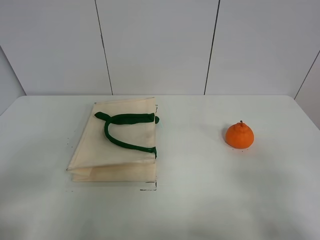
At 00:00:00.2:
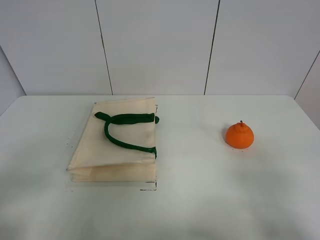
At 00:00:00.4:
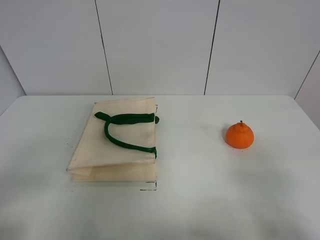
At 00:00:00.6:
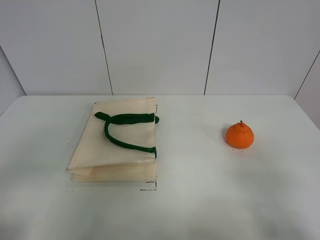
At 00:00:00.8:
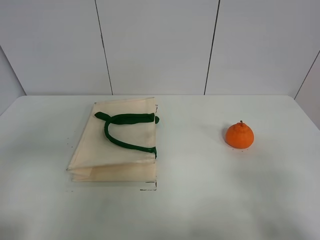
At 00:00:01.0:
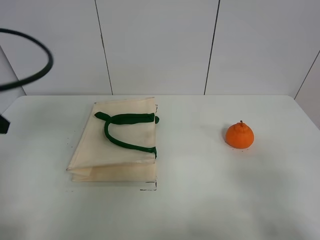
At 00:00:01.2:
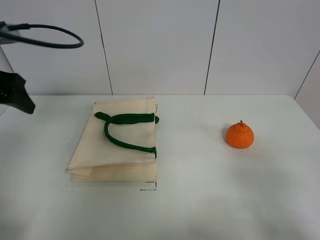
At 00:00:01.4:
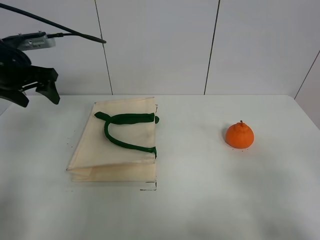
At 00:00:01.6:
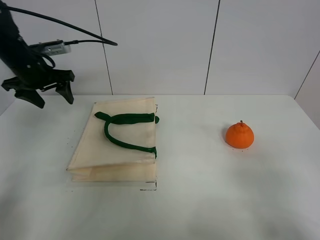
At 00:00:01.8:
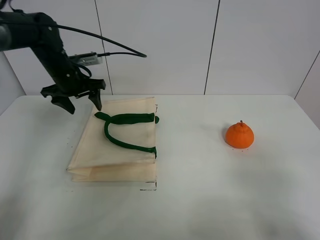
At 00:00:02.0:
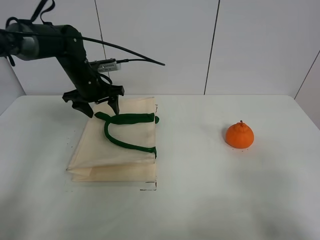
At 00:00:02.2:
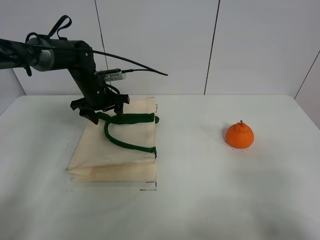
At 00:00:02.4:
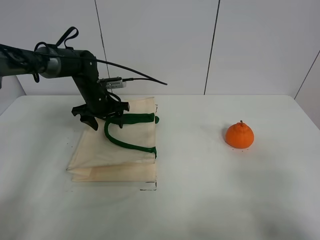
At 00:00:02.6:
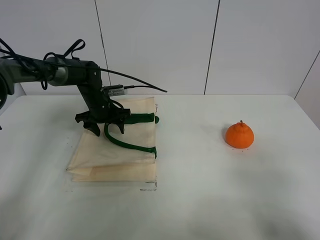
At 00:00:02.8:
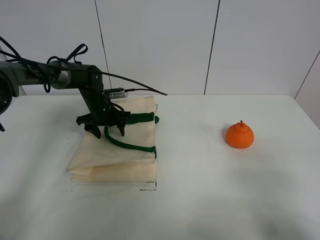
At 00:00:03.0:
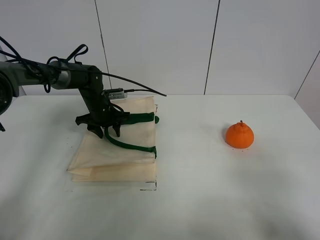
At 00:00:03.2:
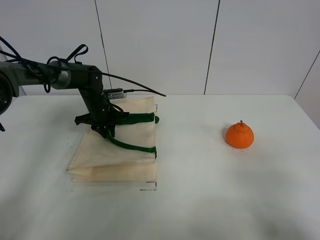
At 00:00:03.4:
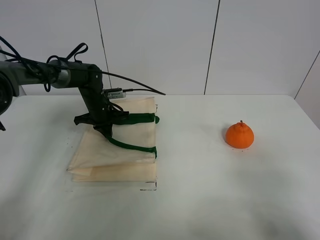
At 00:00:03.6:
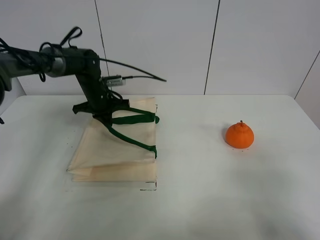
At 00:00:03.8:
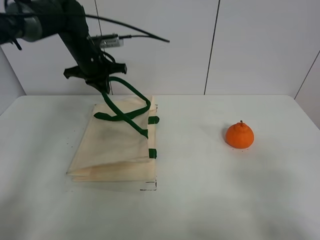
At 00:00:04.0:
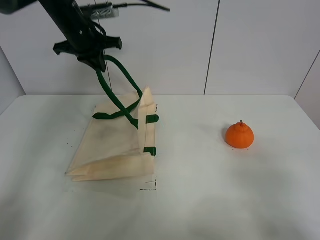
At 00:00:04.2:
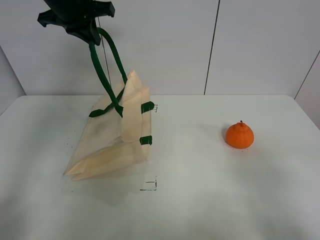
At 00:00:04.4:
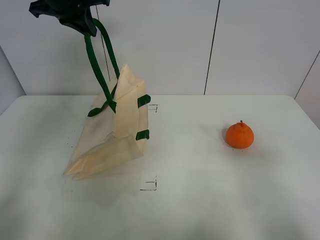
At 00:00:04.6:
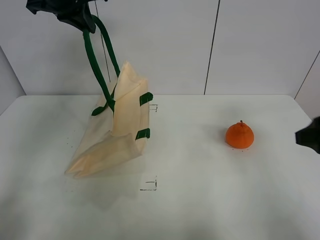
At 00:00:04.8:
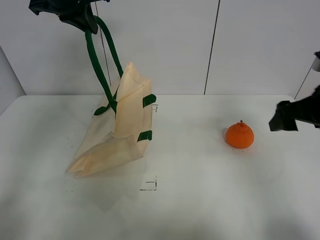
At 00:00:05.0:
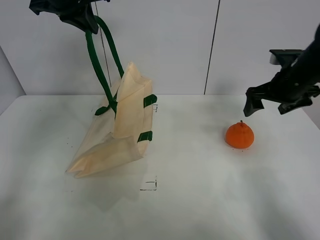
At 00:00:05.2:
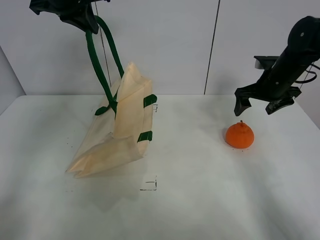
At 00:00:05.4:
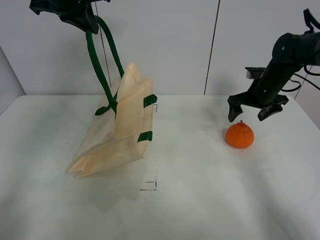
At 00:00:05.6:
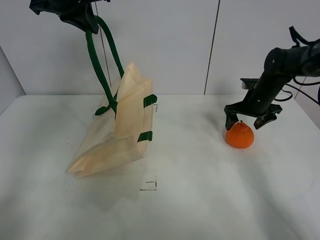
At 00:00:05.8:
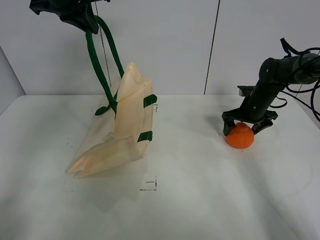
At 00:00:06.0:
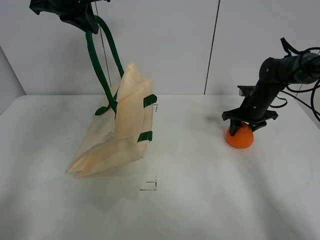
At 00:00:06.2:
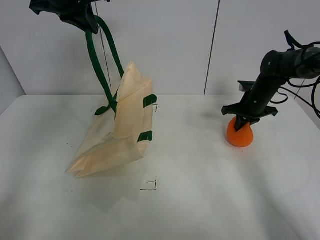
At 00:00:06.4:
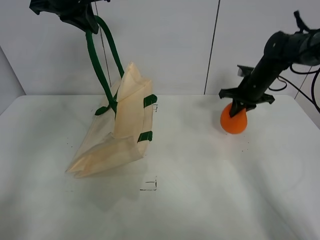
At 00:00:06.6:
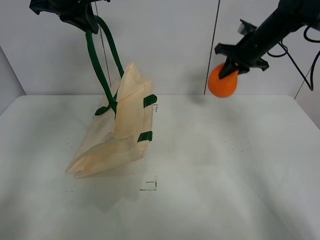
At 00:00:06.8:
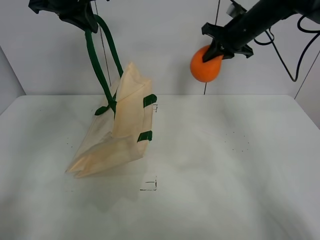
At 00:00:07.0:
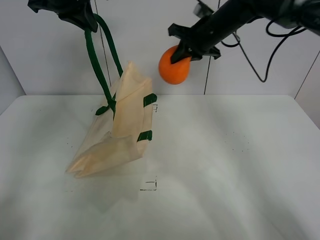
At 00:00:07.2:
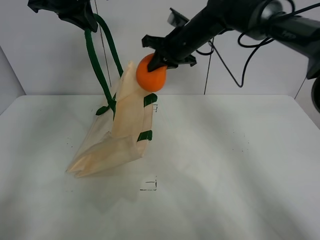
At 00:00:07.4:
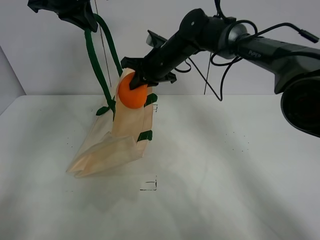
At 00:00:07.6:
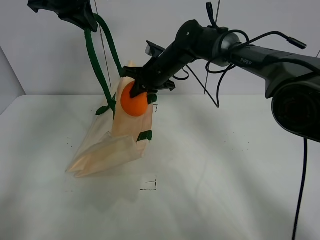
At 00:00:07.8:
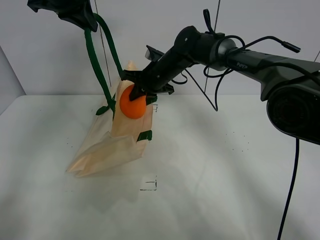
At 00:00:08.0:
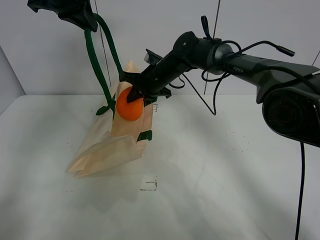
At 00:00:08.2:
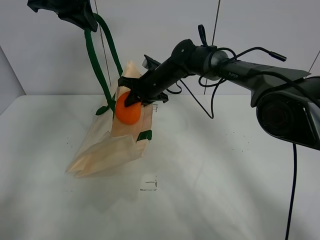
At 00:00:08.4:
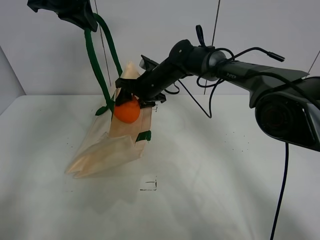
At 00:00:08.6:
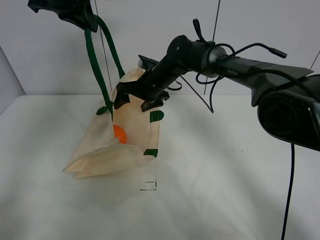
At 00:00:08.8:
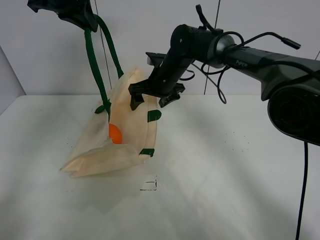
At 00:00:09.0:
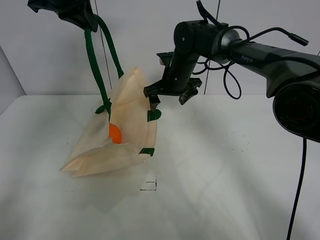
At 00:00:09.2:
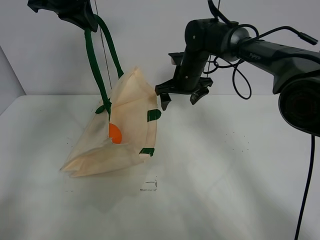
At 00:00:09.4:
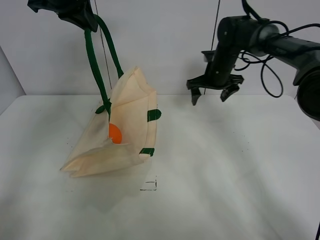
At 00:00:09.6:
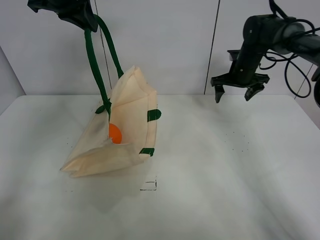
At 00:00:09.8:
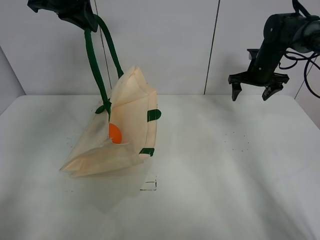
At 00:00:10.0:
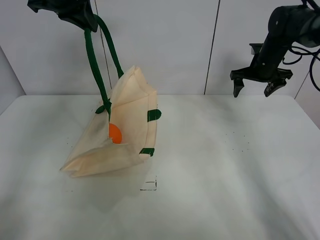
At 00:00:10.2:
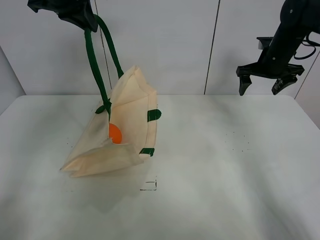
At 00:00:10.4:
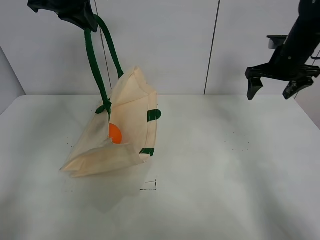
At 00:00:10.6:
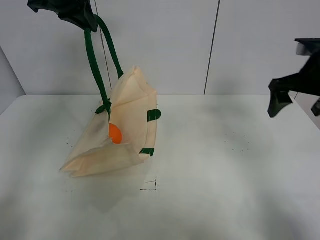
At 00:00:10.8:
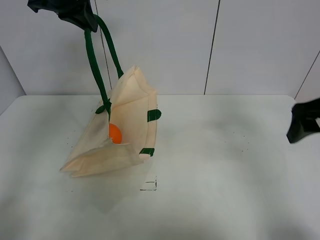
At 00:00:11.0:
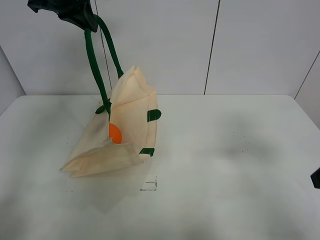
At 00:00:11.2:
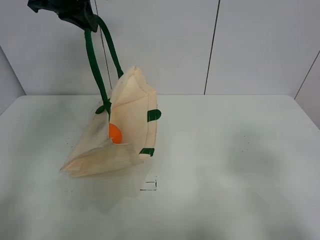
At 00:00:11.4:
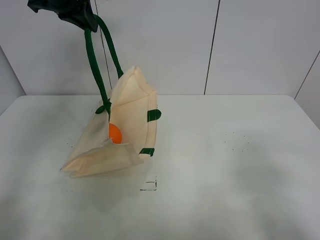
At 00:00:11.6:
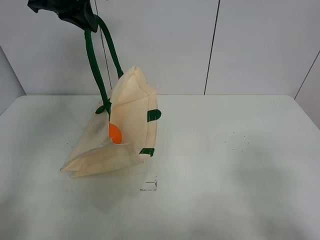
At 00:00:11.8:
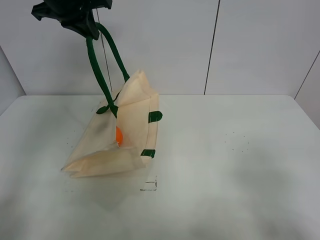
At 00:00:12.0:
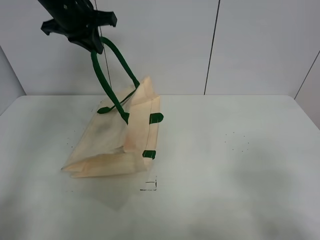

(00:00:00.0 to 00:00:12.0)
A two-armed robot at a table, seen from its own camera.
Task of the whole recording: open the white linen bag and put the orange in the bag.
Step, 00:00:00.0 - 00:00:04.0: Lift the handbag with left gripper.
Step, 00:00:04.2 - 00:00:06.2: Grasp the orange with right gripper.
Step, 00:00:06.4 - 00:00:09.4: Place the orange in the handbag with right gripper.
00:00:00.0 - 00:00:01.6: The left gripper goes approximately 40 cm forward.
00:00:01.6 - 00:00:03.0: The left gripper is displaced downward and to the right by approximately 20 cm.
00:00:03.0 - 00:00:04.4: The left gripper heads upward, covering roughly 30 cm, and closes its fingers. The right gripper ends up about 5 cm from where it was.
00:00:04.4 - 00:00:06.0: The right gripper travels forward and downward by some 40 cm, and closes up.
00:00:06.0 - 00:00:07.6: The right gripper travels to the left by some 25 cm, and closes.
00:00:07.6 - 00:00:09.0: The right gripper opens.
00:00:09.0 - 00:00:10.4: The right gripper shifts some 25 cm to the right.
00:00:10.4 - 00:00:12.0: The right gripper moves backward, approximately 40 cm.

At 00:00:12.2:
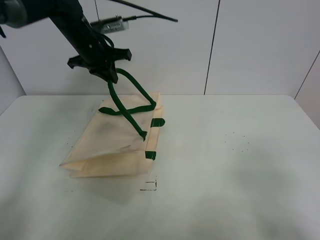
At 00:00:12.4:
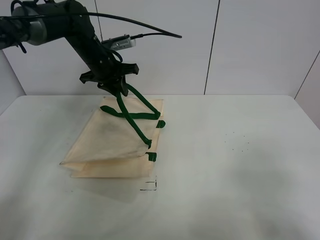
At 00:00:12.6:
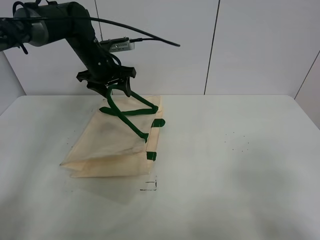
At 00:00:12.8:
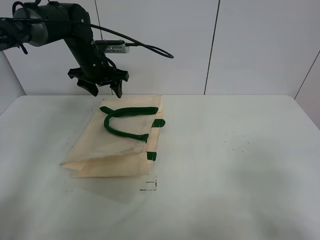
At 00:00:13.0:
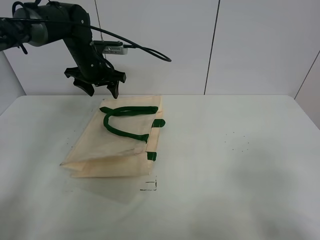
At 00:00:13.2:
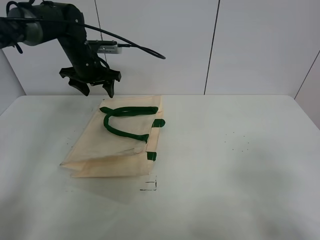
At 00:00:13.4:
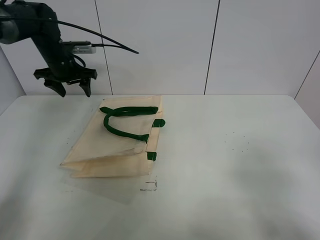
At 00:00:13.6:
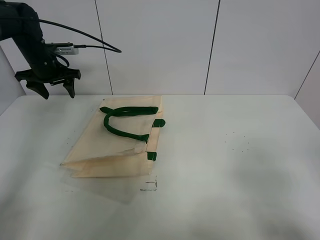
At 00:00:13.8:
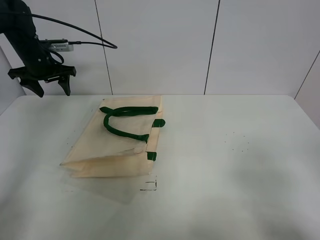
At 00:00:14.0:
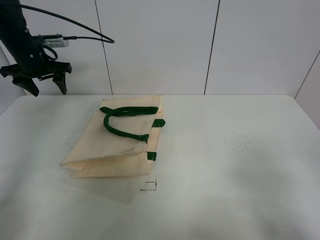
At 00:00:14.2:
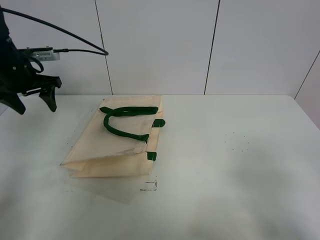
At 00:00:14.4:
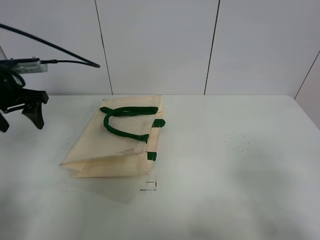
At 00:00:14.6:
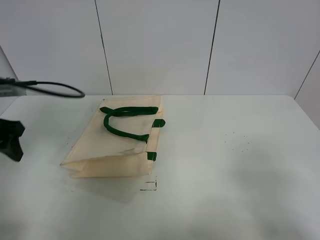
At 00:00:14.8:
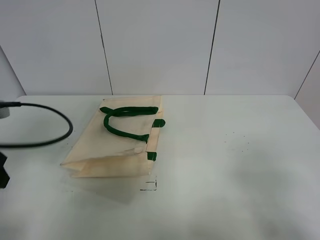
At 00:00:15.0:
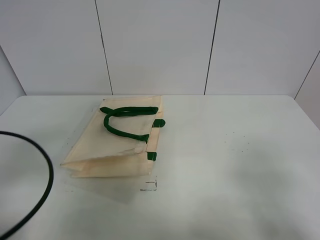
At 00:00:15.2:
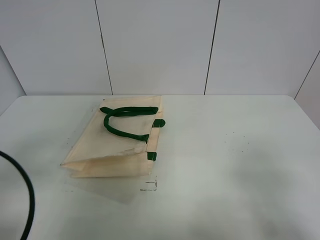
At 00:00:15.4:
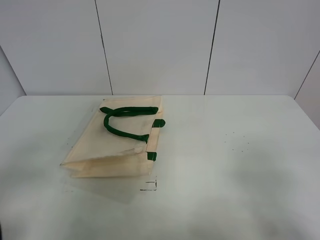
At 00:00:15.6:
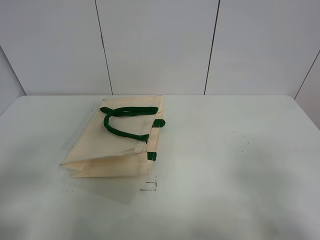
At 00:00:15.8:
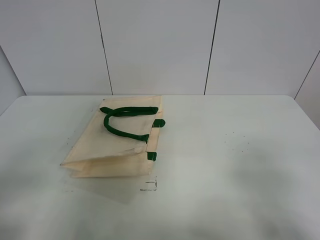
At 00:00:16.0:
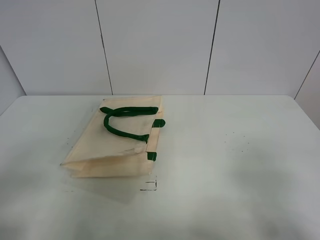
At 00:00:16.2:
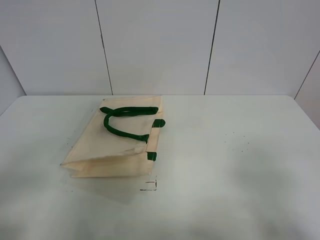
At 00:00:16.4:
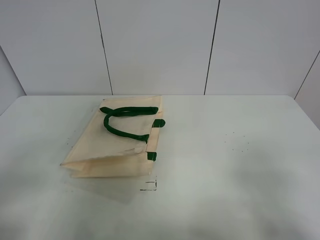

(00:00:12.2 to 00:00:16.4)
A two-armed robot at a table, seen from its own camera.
Task of the whole recording: open the white linen bag and put the orange in the bag.
00:00:12.2 - 00:00:13.6: The left gripper shifts some 15 cm to the left, and opens its fingers.
00:00:13.6 - 00:00:15.0: The left gripper heads backward, covering some 35 cm.
00:00:15.0 - 00:00:16.4: The left gripper goes roughly 10 cm backward.
